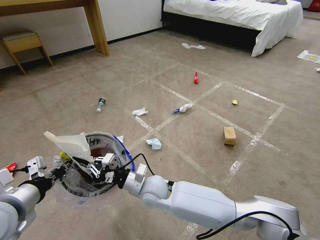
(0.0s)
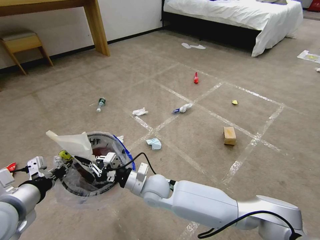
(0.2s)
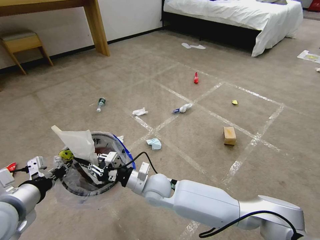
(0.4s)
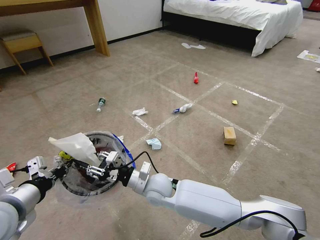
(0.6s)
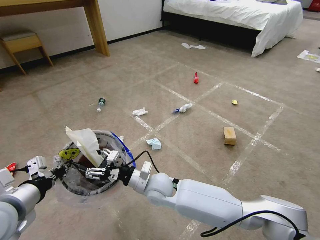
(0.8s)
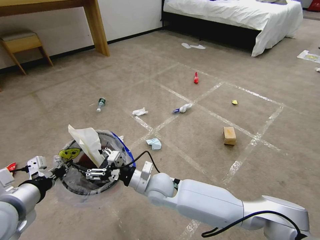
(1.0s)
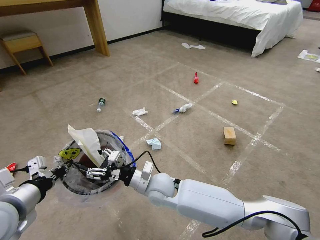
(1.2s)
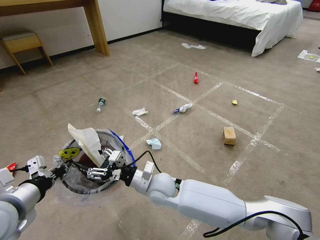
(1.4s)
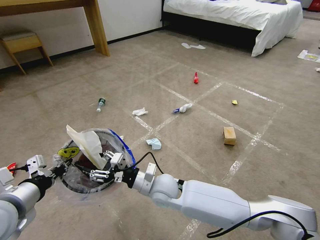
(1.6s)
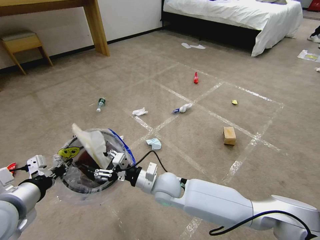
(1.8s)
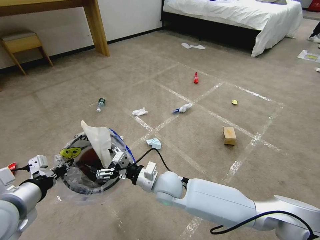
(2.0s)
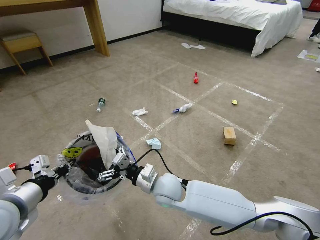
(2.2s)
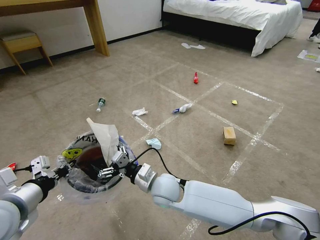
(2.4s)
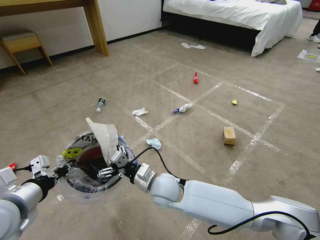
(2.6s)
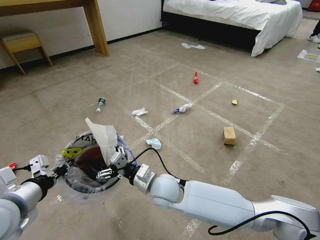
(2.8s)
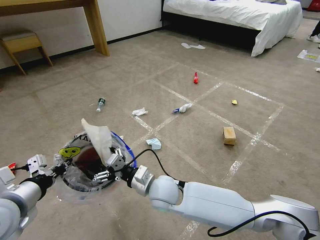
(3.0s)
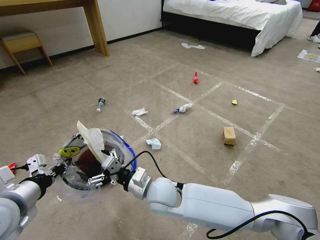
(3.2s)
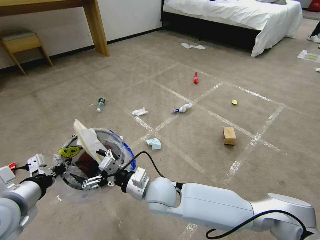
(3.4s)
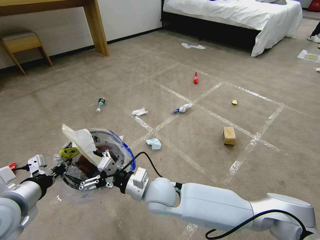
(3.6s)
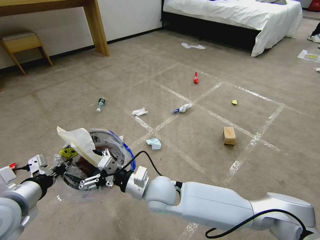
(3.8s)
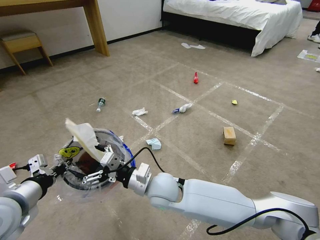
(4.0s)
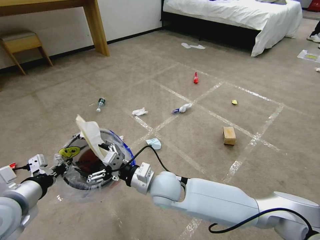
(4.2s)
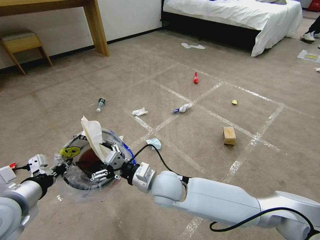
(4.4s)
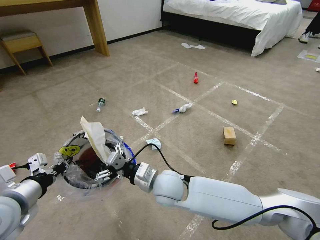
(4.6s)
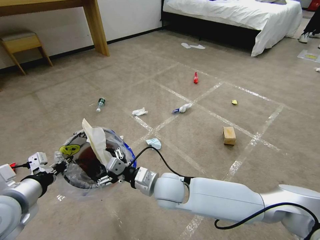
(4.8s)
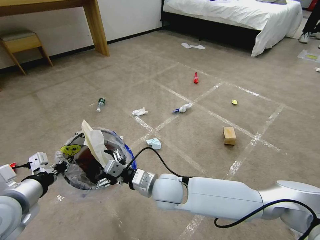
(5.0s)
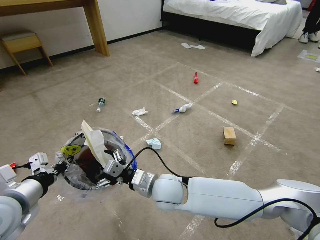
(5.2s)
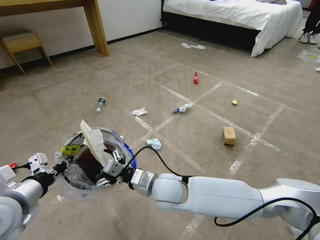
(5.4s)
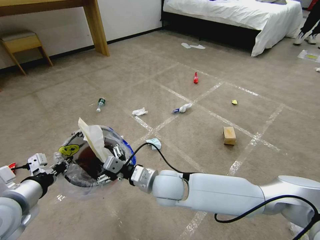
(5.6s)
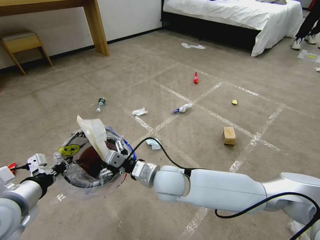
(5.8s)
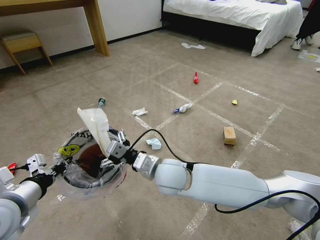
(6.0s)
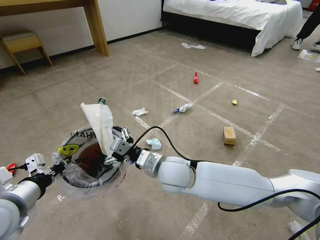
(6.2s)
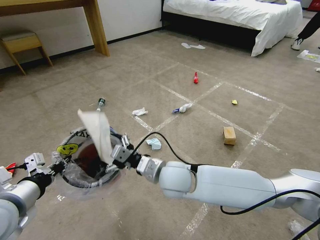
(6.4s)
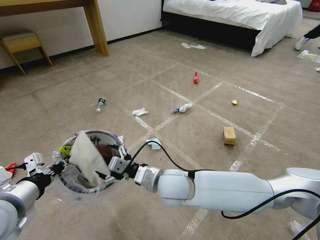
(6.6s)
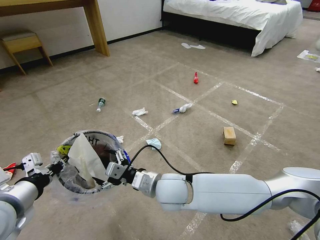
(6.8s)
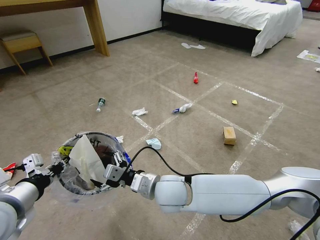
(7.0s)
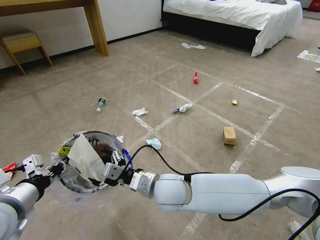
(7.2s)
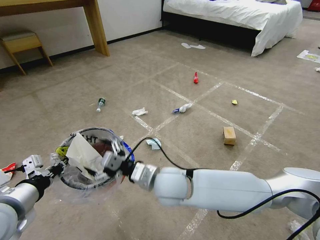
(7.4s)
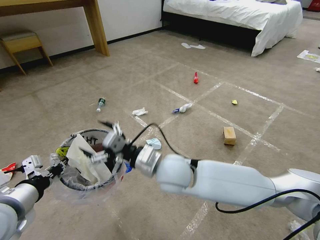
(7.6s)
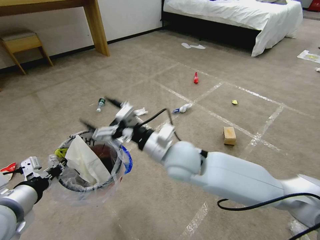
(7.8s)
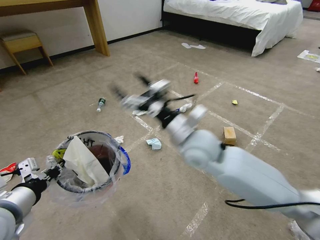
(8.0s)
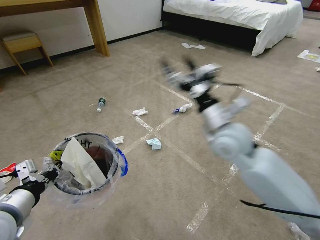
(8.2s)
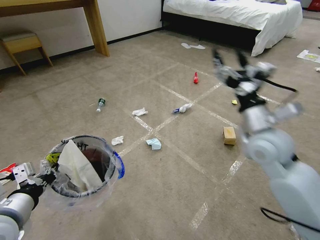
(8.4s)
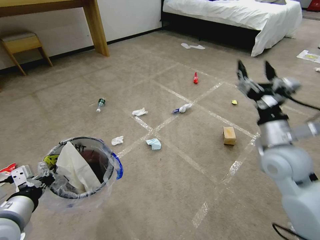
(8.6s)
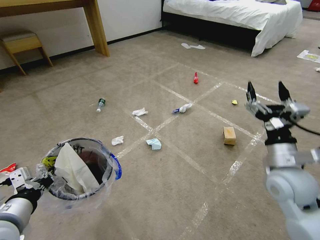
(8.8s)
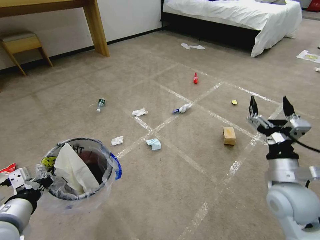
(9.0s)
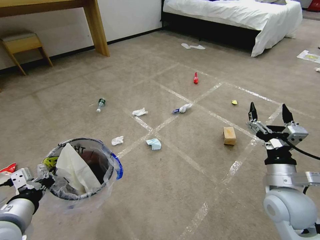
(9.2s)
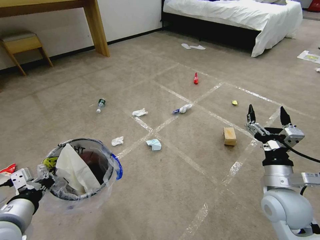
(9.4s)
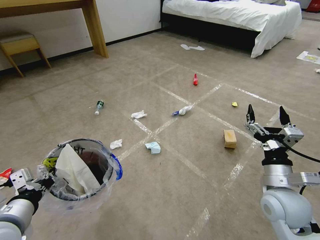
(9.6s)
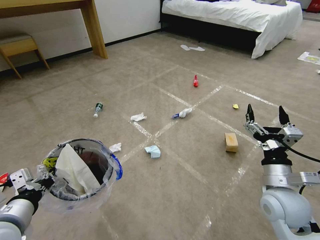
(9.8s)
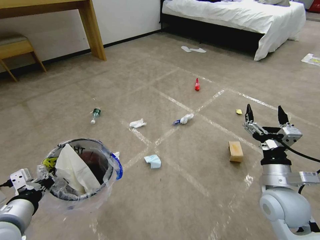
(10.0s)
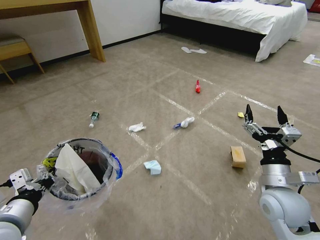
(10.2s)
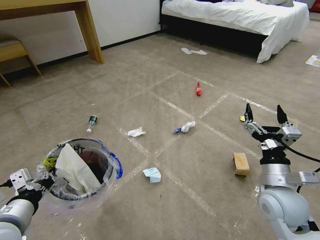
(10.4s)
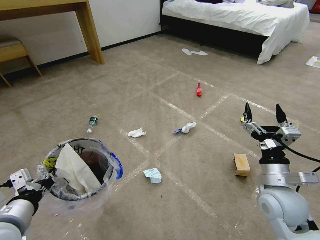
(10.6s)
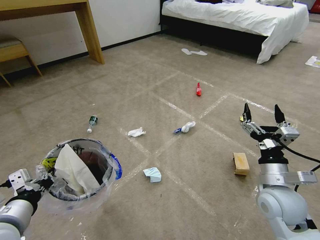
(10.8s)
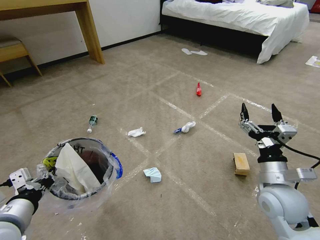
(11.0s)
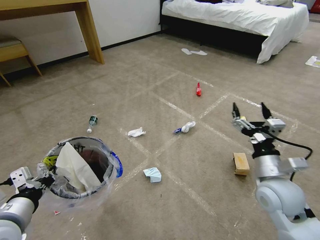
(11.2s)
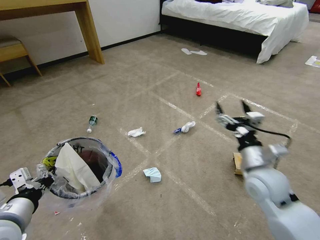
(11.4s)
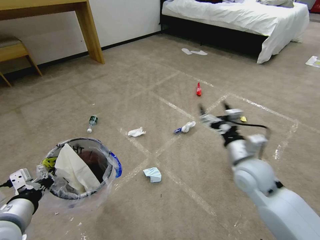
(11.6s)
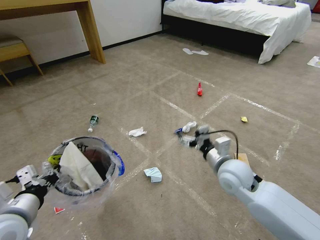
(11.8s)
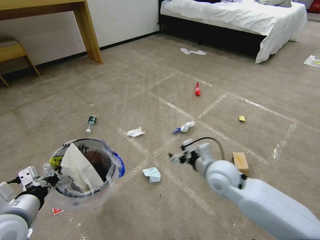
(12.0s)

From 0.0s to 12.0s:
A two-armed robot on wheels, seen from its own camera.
Task of the whole recording: Pick up the trash bin and place the garbage on the floor into it.
From 0.0s to 1.6s: The right gripper opens up.
From 1.6s to 3.0s: The right gripper opens its fingers.
From 3.0s to 4.4s: The grippers stay close to where they were, moving slightly.
From 4.4s to 6.0s: The right gripper moves approximately 5 cm.
From 6.0s to 7.6s: There are only small adjustments of the grippers.
From 7.6s to 9.0s: The right gripper shifts approximately 30 cm to the right.
From 10.4s to 12.0s: The right gripper goes approximately 15 cm to the left and forward.

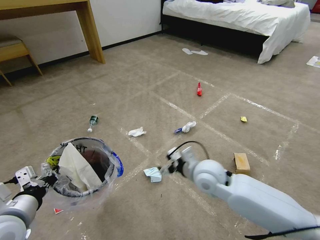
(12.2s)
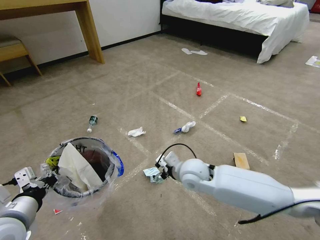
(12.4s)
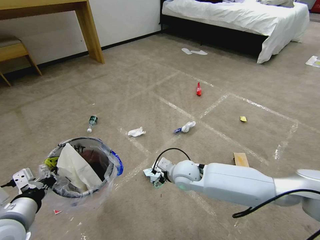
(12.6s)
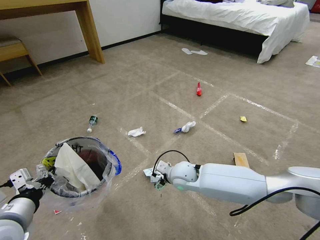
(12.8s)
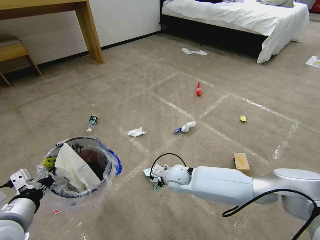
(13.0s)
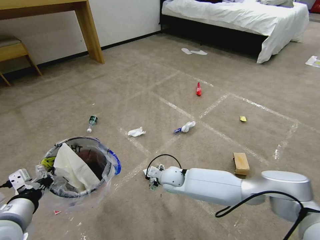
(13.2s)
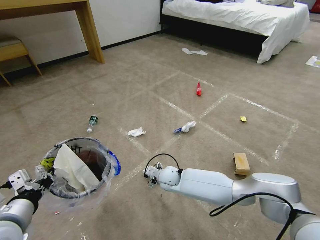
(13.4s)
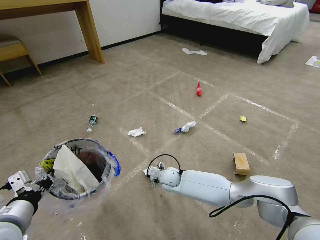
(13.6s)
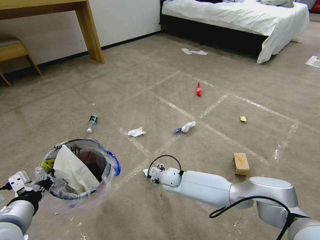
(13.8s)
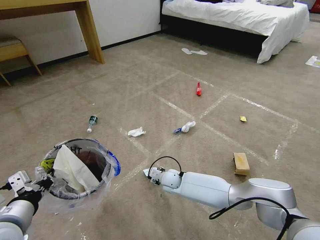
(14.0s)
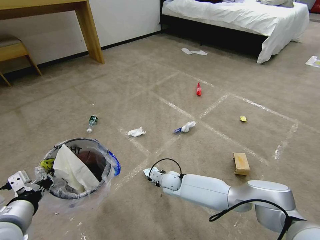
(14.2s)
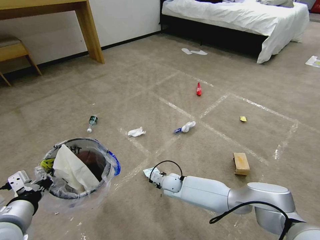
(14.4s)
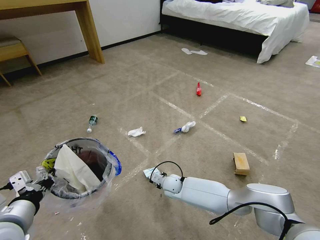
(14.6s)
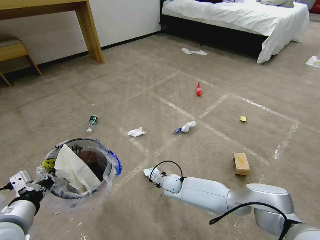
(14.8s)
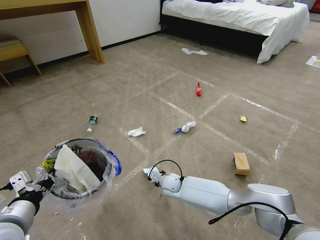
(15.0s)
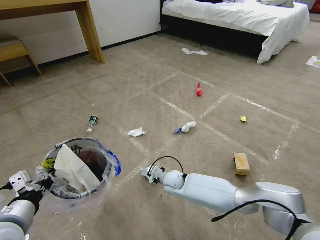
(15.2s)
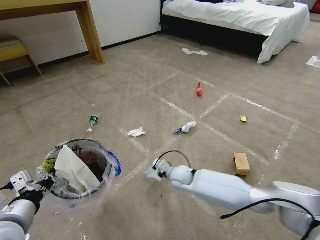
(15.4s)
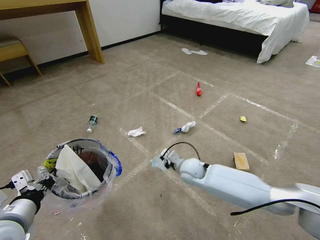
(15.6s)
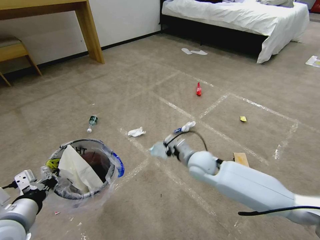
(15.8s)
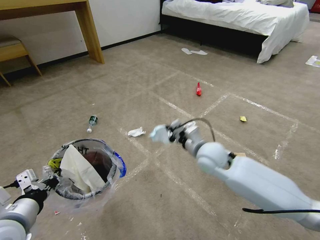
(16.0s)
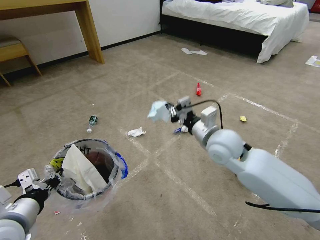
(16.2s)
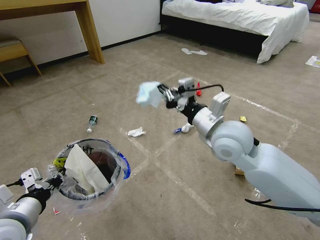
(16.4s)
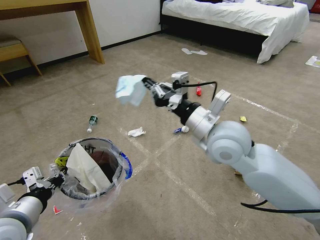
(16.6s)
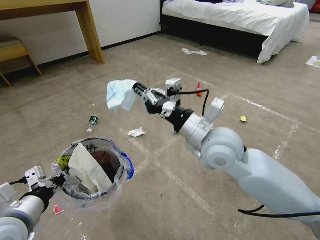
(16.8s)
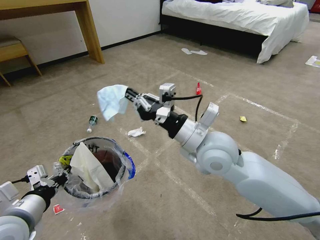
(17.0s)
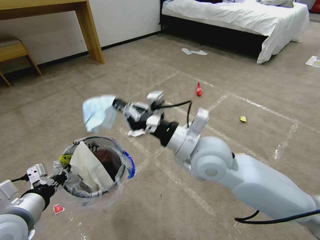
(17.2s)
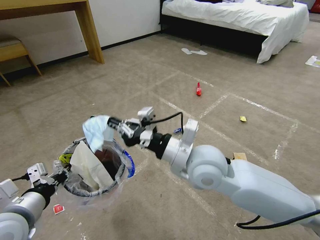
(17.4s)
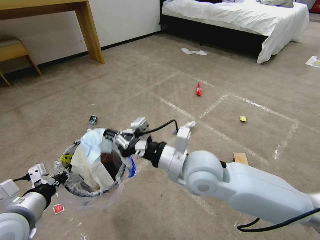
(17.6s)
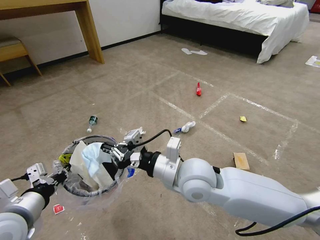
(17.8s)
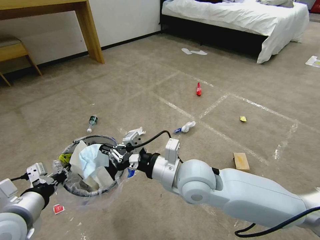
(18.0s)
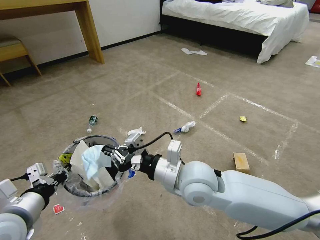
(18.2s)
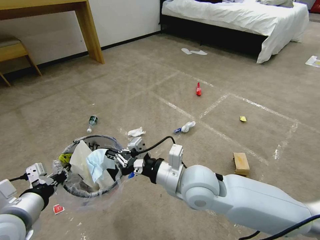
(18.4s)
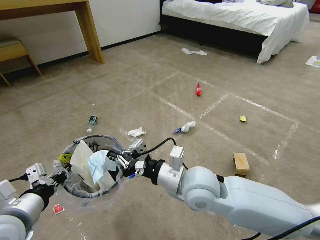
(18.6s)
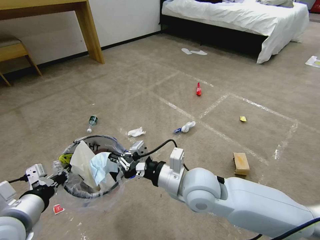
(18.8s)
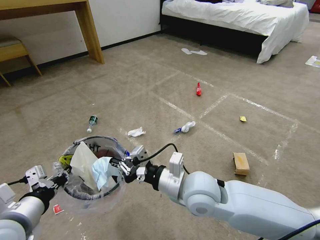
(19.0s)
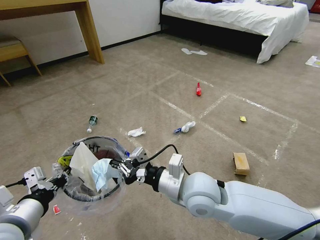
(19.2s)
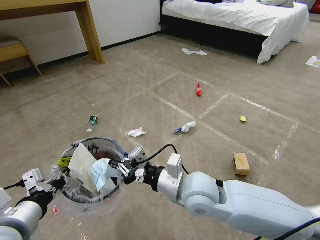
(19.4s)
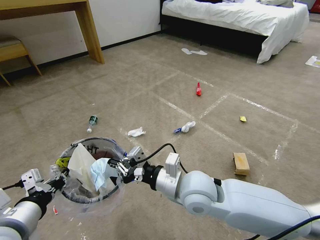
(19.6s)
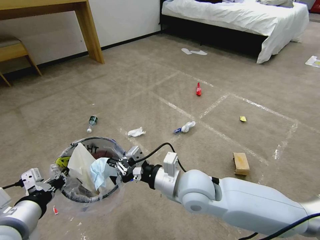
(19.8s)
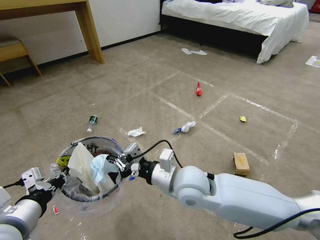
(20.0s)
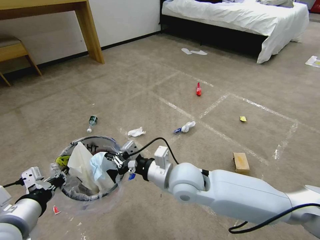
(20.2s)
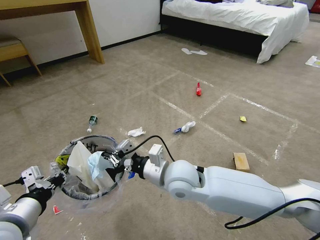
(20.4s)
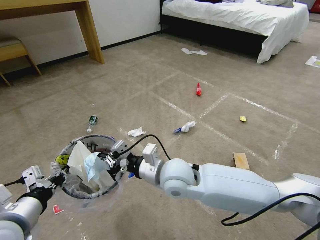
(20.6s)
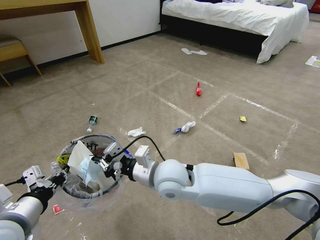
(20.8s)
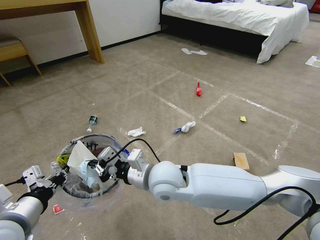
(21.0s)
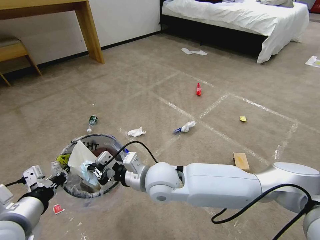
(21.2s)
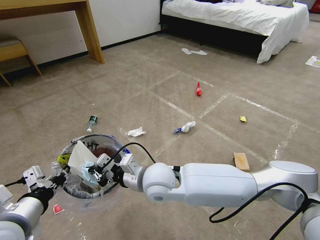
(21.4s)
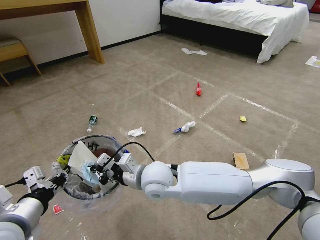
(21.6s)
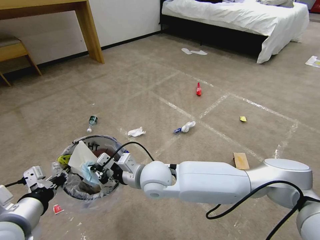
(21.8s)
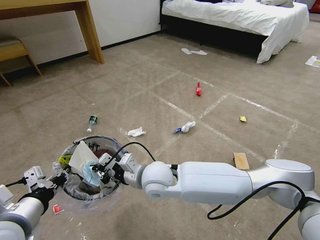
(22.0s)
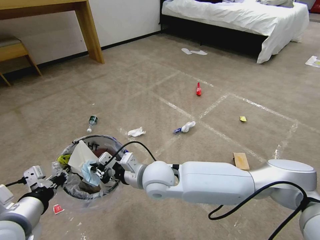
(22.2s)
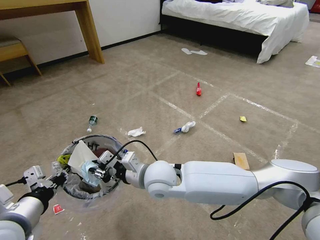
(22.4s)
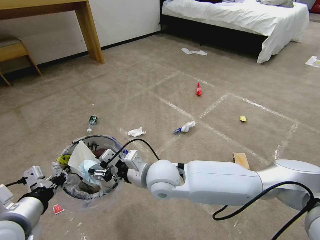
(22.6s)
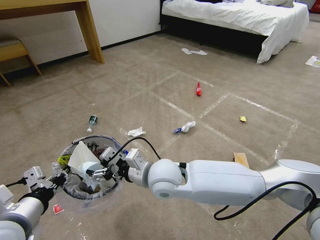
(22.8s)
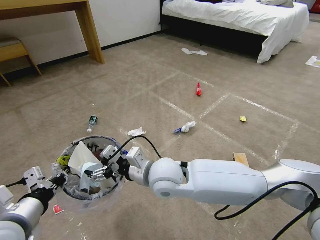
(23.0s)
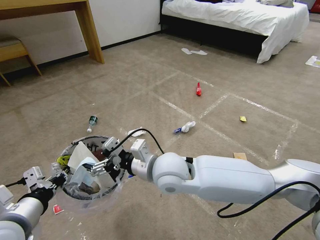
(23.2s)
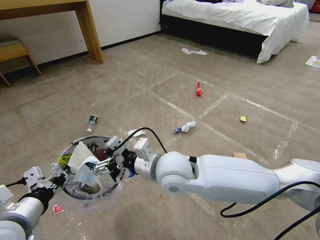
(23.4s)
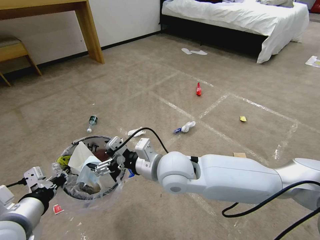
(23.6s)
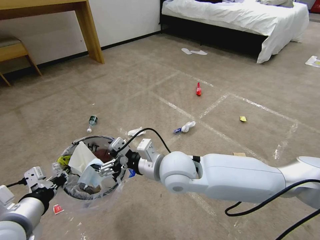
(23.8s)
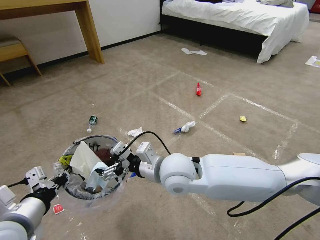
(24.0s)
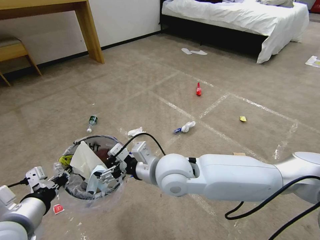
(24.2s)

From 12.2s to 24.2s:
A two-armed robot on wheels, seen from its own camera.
Task of the whole recording: Pick up the trash bin and place the garbage on the floor into it.
From 12.2s to 13.8s: The right gripper is displaced downward, forward and to the left by some 20 cm.
From 13.8s to 15.2s: The right gripper closes up.
From 15.2s to 16.6s: The right gripper shifts approximately 35 cm upward.
From 16.6s to 18.2s: The right gripper goes some 10 cm downward, to the left and backward.
From 18.2s to 19.8s: The grippers stay close to where they were, moving slightly.
From 19.8s to 21.2s: The right gripper travels to the left by roughly 10 cm.
From 21.2s to 22.6s: The right gripper opens up.
From 22.6s to 24.2s: The right gripper ends up about 5 cm from where it was, and opens its fingers.
